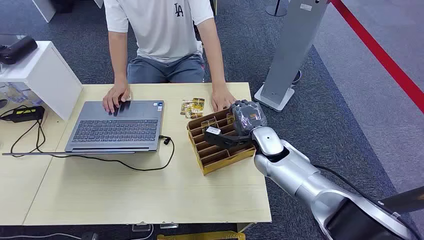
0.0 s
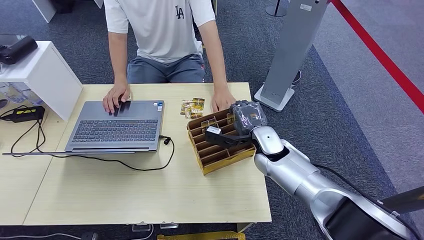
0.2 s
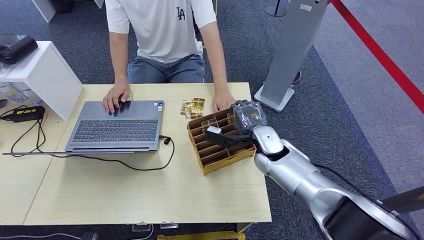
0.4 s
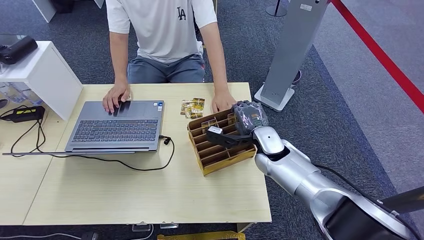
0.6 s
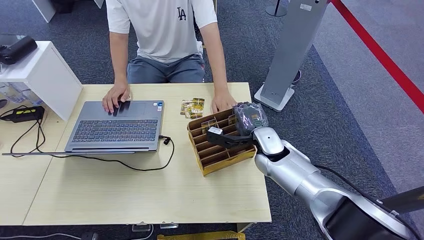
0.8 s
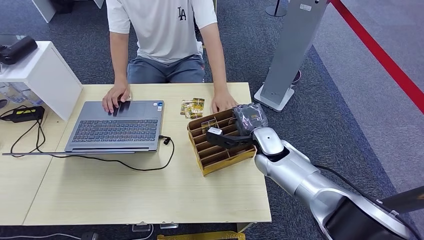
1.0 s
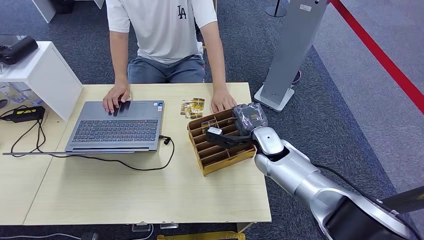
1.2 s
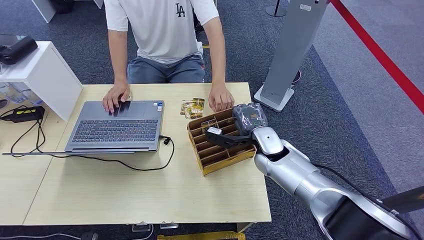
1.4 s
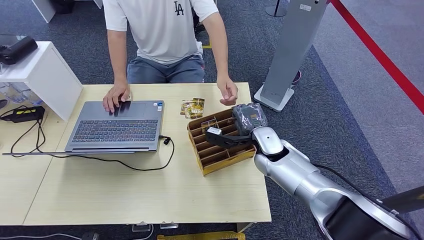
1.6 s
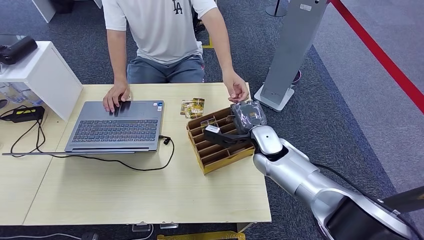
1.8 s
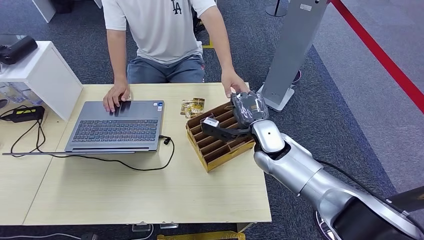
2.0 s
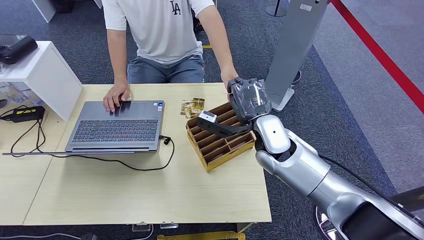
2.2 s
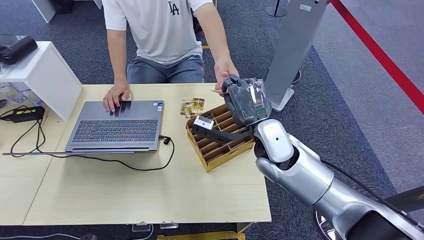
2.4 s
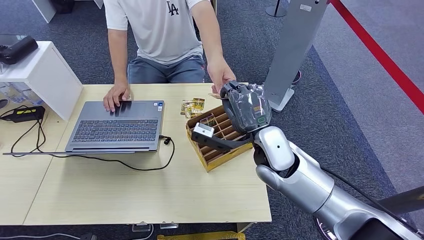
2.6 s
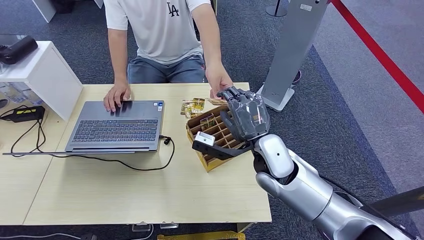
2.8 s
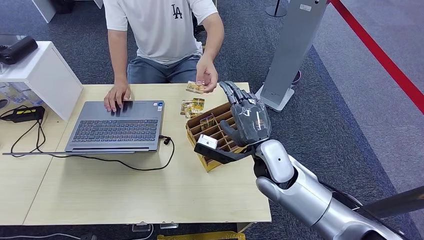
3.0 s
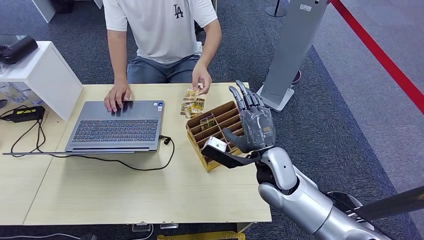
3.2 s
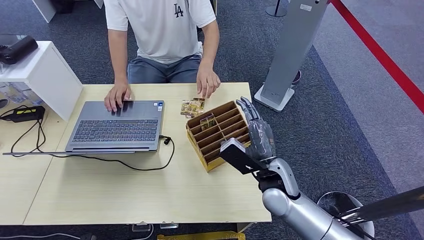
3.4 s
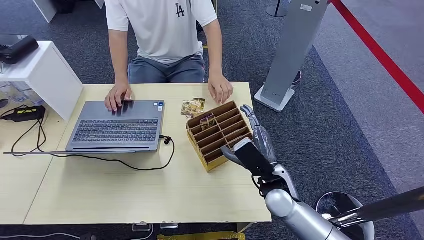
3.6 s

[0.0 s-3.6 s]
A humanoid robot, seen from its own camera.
Step, 0.0 to 1.6 s: Pick up the key card from the card box.
Step, 2.0 to 3.4 s: Hand the key card to the target.
1.8 to 3.6 s: The right hand shifts approximately 10 cm backward, and goes upward and returns, some 10 cm each way.
